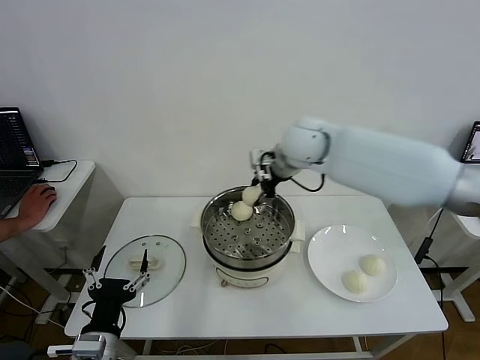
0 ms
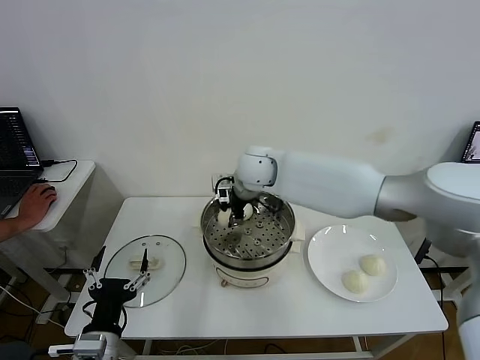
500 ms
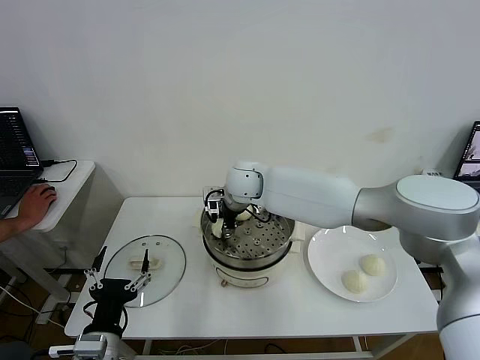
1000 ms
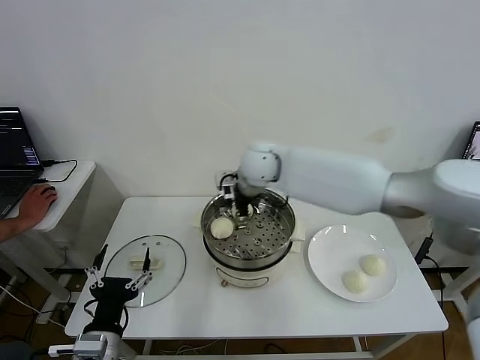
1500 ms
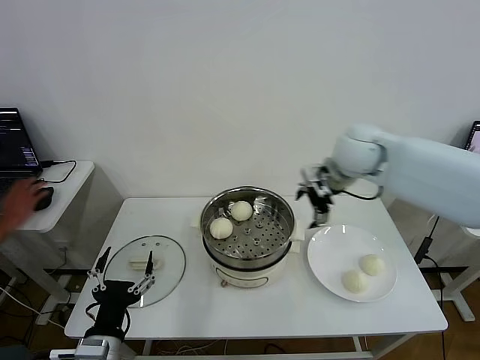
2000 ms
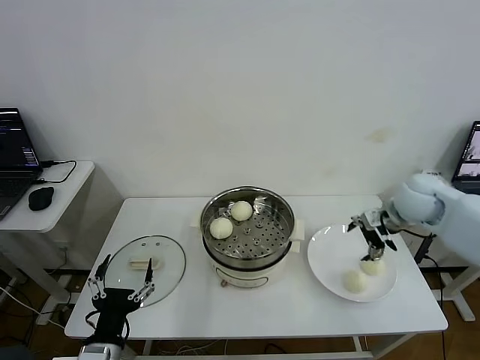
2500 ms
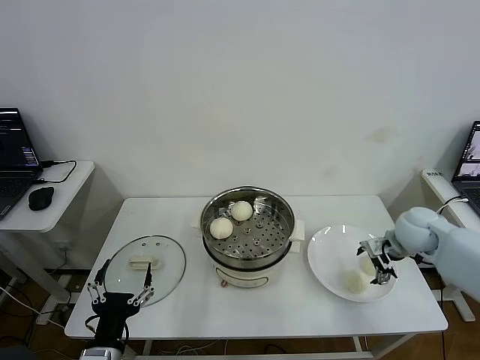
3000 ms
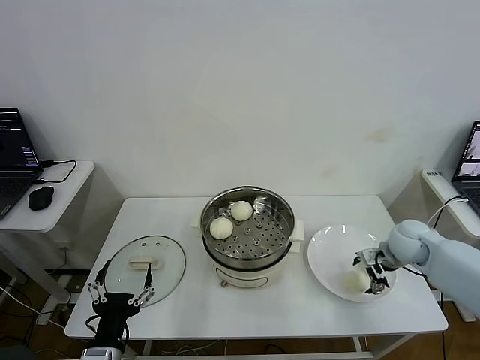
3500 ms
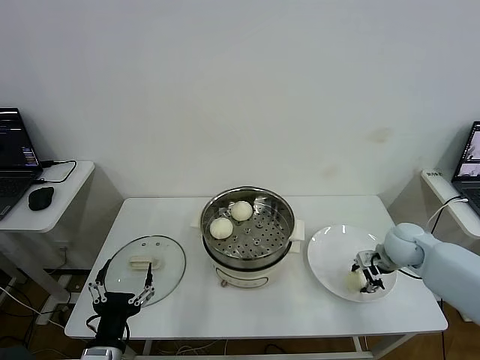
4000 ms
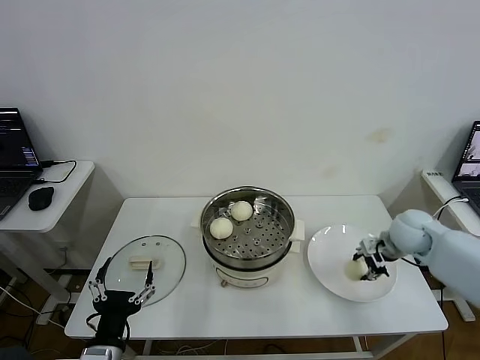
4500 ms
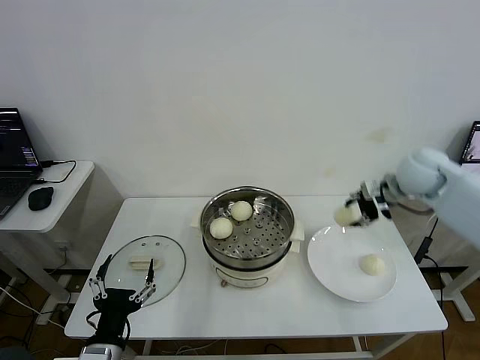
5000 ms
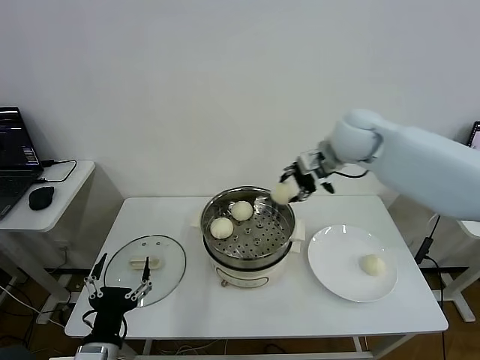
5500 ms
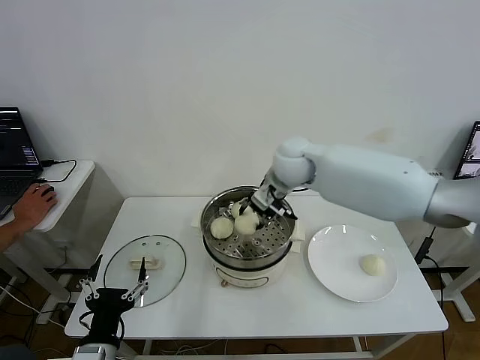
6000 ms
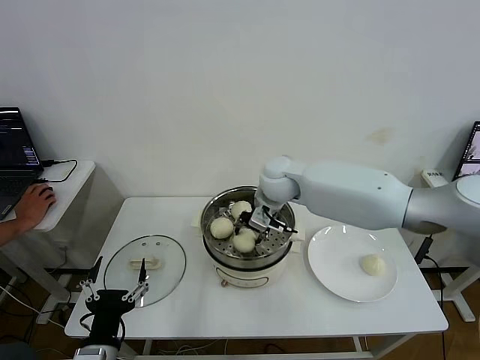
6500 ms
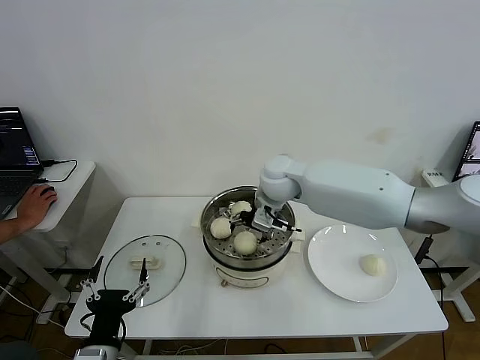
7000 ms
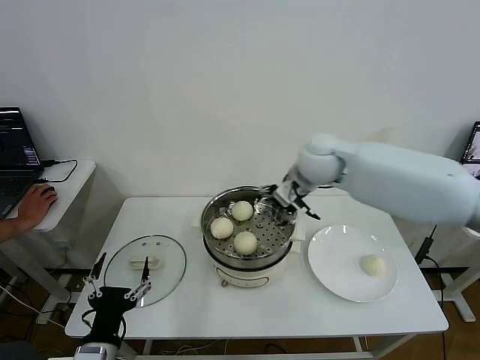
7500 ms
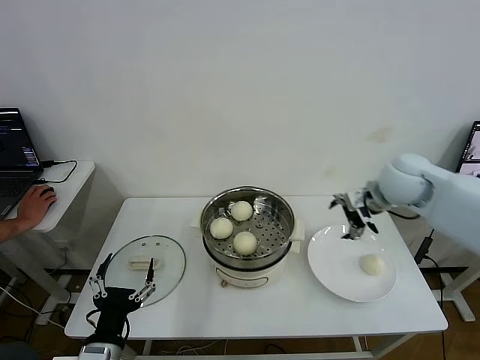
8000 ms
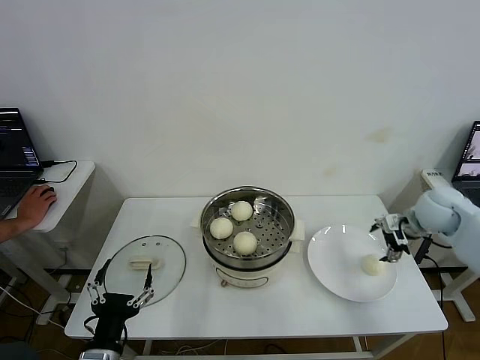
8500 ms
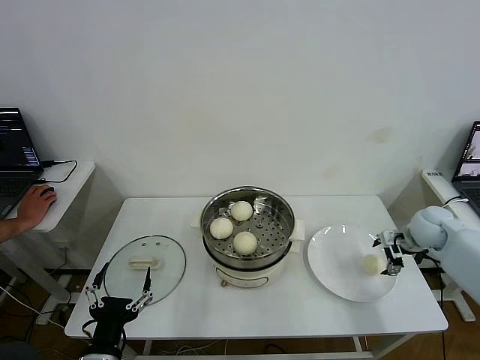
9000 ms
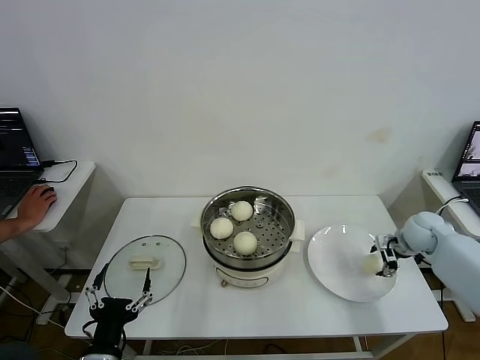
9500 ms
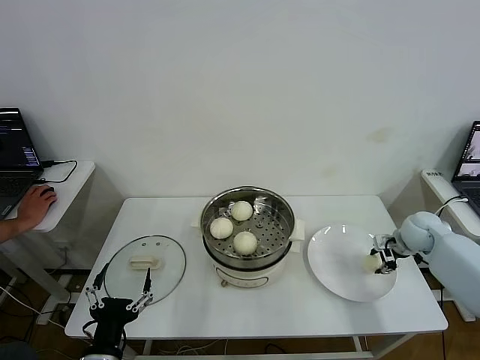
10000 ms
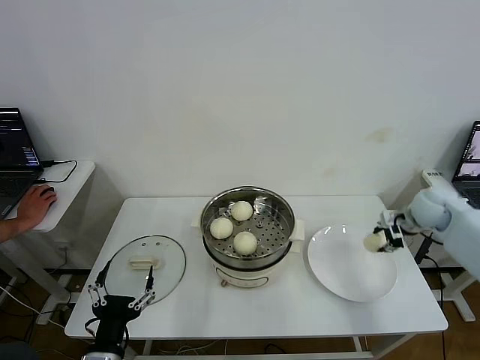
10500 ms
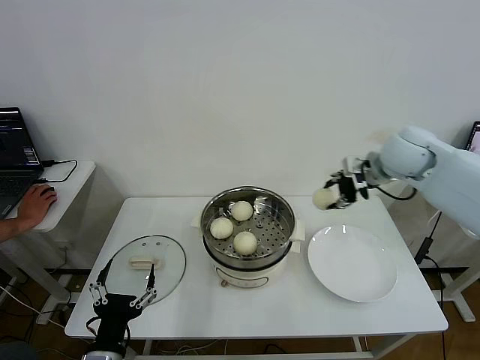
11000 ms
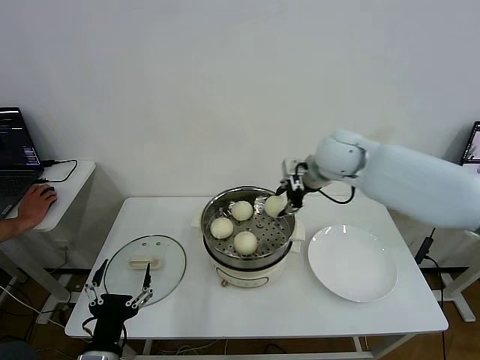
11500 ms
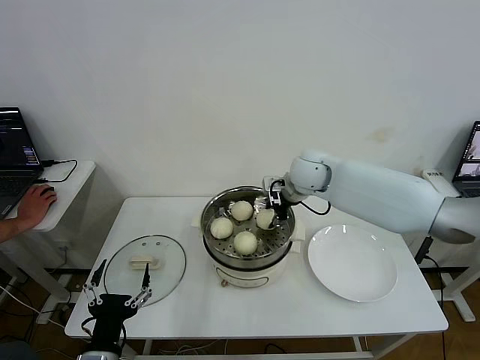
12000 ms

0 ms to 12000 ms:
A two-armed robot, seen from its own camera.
Step, 2000 ms to 3500 ms: Grasp the baozi in the plate with right gripper.
Step, 4500 ms to 7000 ms: Place the baozi on the steamer with right gripper.
Step, 7500 ms to 9500 ms: Grasp the baozi in the plate with right gripper.
0 ms to 2000 ms: The right gripper shifts about 15 cm to the right, and opens.
2000 ms to 4000 ms: The right gripper is displaced downward and to the right by roughly 25 cm, and closes up.
4000 ms to 6000 ms: The right gripper shifts some 35 cm to the left and upward.
6000 ms to 8000 ms: The right gripper goes some 25 cm to the right, and opens.
8000 ms to 10000 ms: The right gripper shifts about 20 cm downward and to the right, and closes its fingers.
10000 ms to 12000 ms: The right gripper heads to the left and upward, covering some 35 cm.

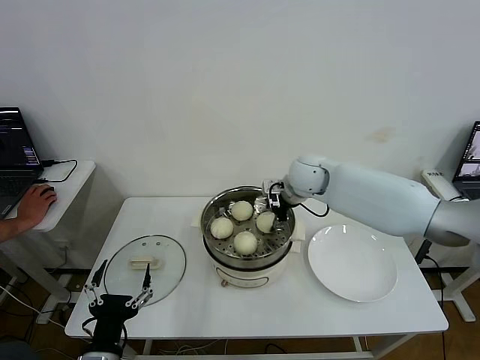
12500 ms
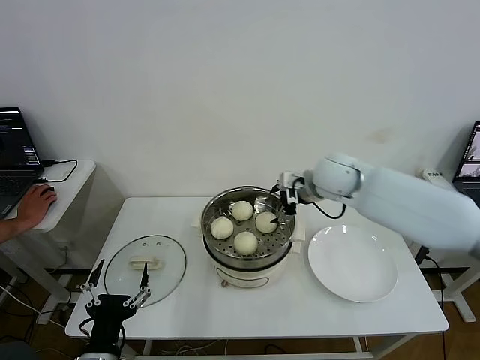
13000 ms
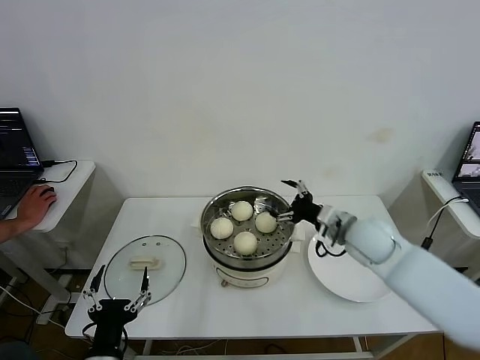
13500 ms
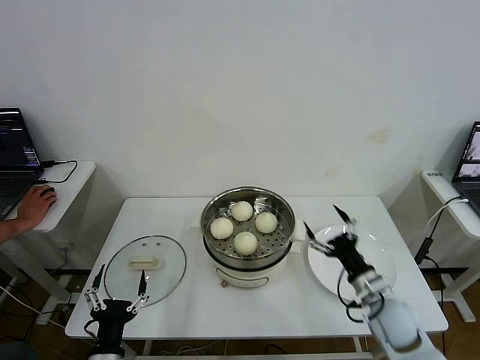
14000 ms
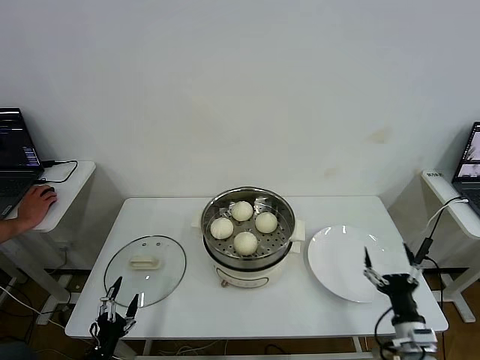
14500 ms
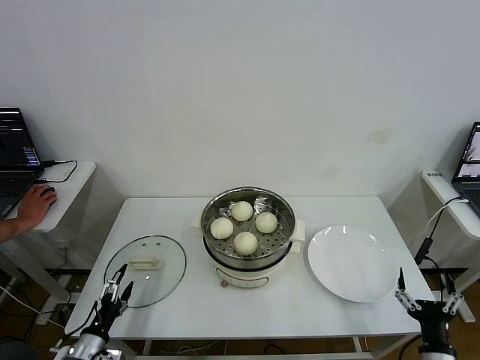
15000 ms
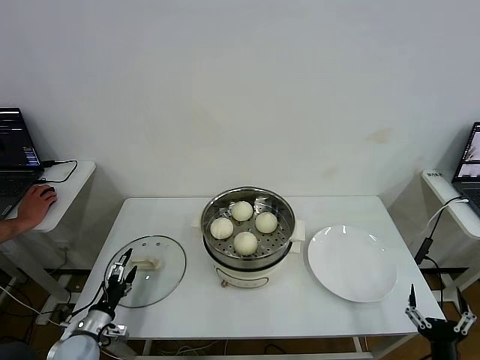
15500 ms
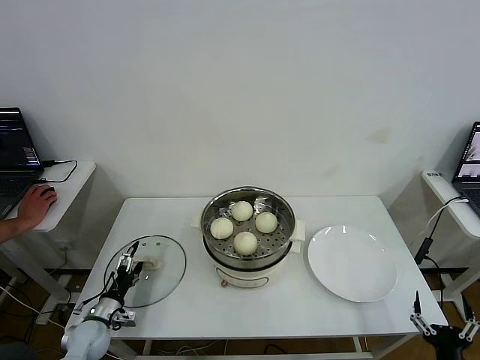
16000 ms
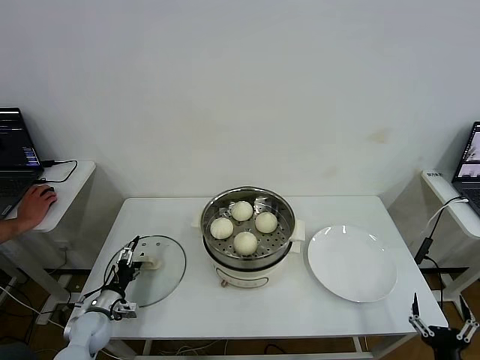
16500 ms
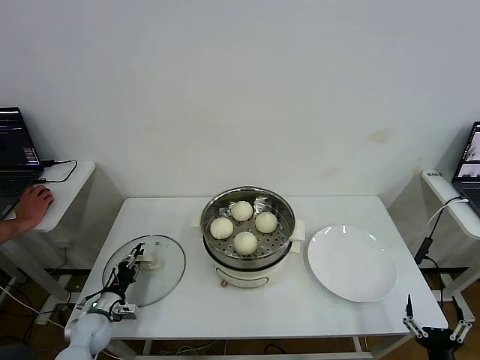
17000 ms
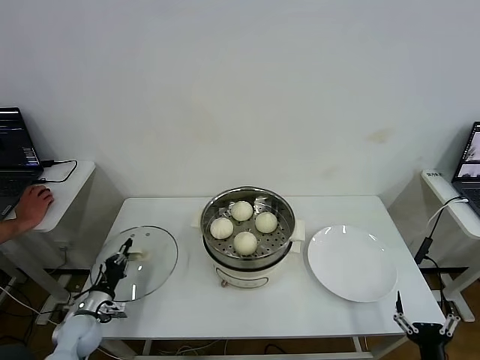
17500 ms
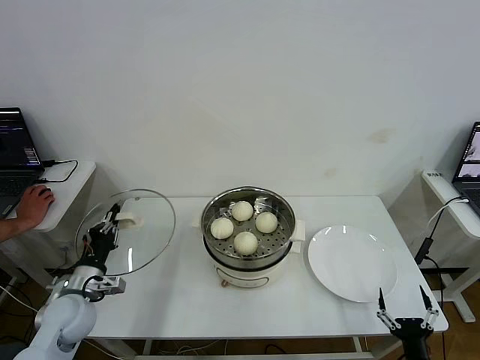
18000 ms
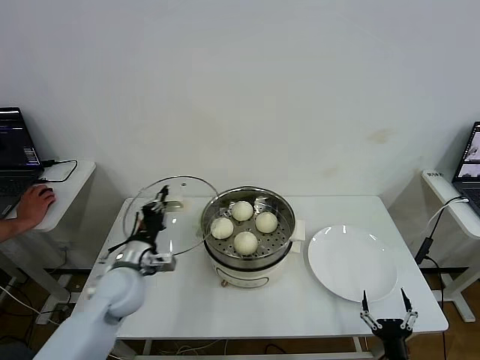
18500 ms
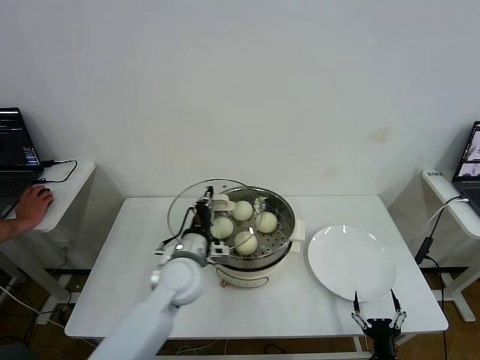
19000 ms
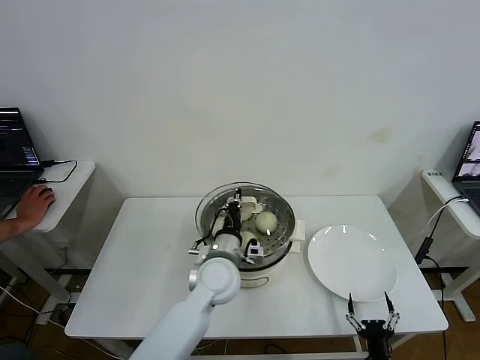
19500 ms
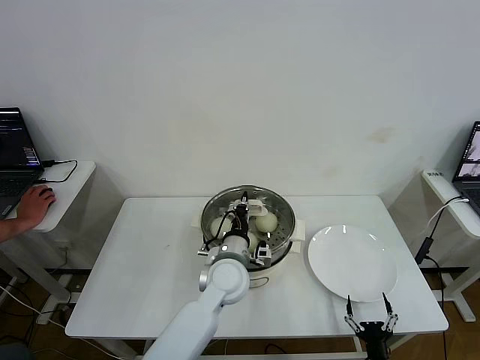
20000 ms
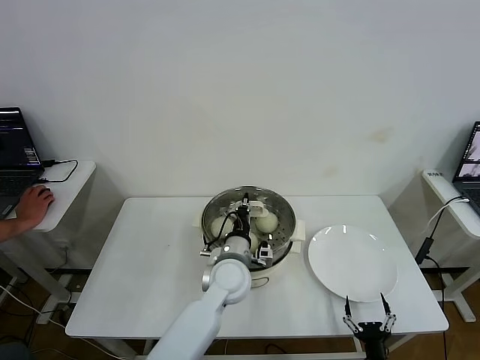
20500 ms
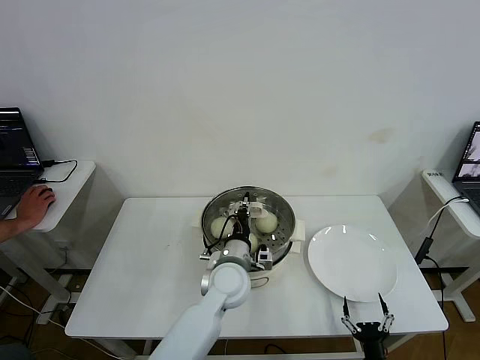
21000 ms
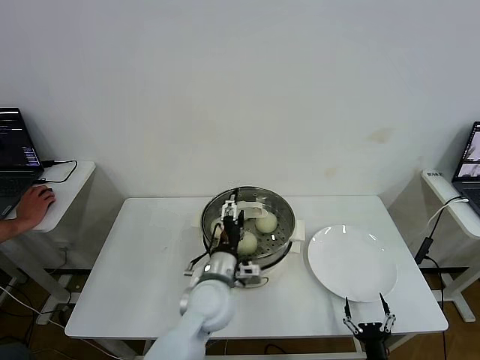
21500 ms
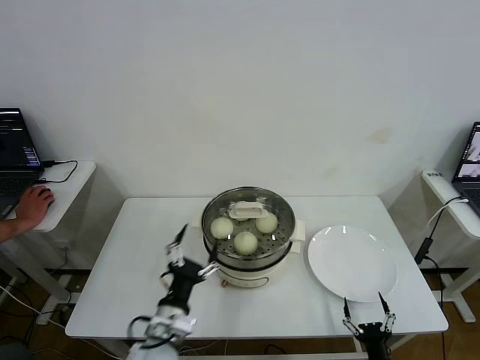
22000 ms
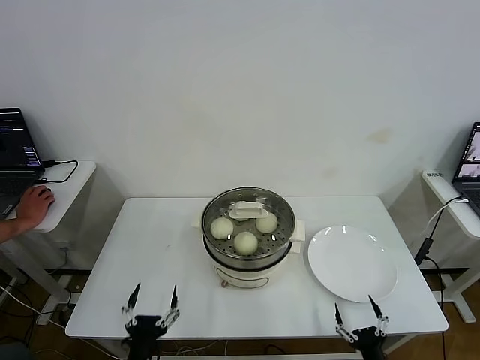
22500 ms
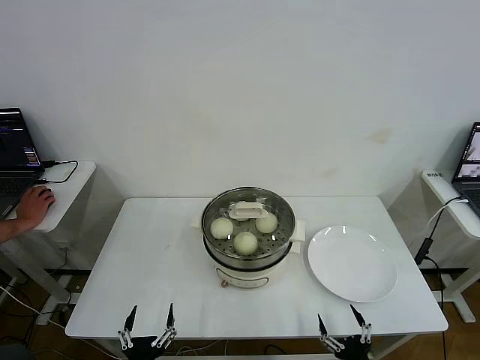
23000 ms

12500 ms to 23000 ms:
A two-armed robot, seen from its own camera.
Step, 13500 ms to 17000 ms: Grasp the pot lid with left gripper.
Step, 18000 ms to 21500 ms: Place the pot lid on the steamer with left gripper.
12500 ms to 14500 ms: The left gripper goes approximately 15 cm downward and to the left. Meanwhile the right gripper is displaced backward, downward and to the right by some 50 cm, and opens its fingers.
14500 ms to 16500 ms: The left gripper moves forward, some 20 cm. The right gripper is displaced backward by some 10 cm.
16500 ms to 19000 ms: The left gripper travels to the right and upward by about 30 cm, and closes its fingers, while the right gripper goes approximately 10 cm to the left and downward.
19000 ms to 21000 ms: The left gripper heads to the right, covering about 10 cm.
21000 ms to 23000 ms: The right gripper shifts some 5 cm upward. Meanwhile the left gripper travels backward and to the left by about 35 cm, and opens up.

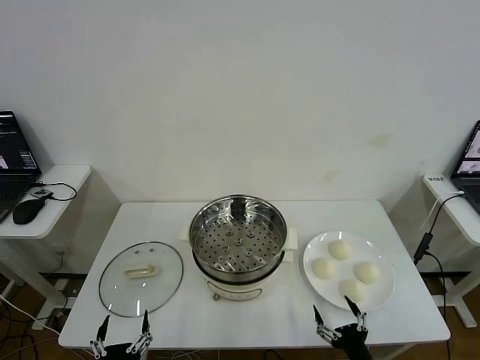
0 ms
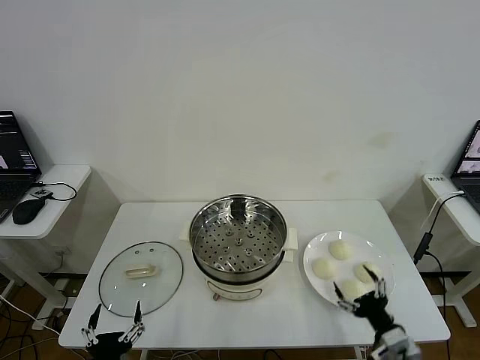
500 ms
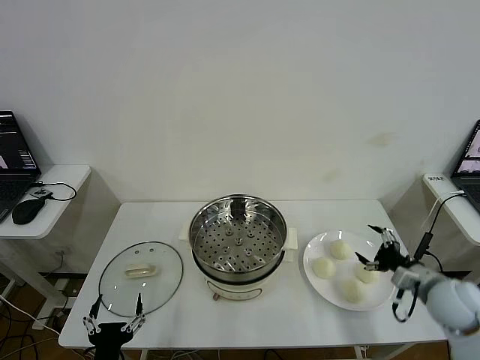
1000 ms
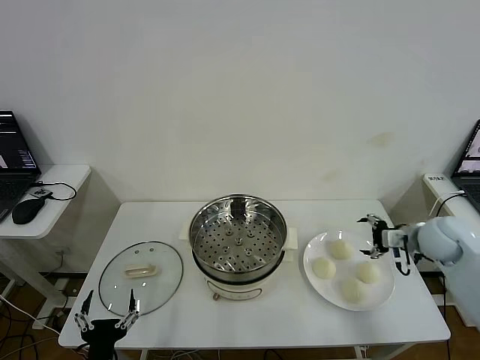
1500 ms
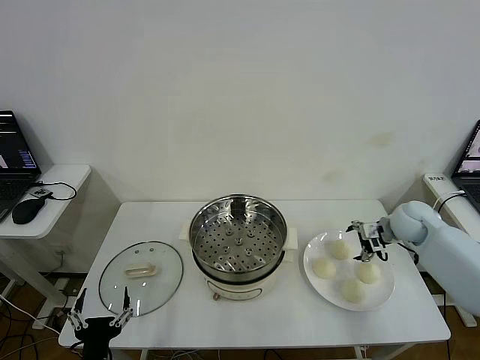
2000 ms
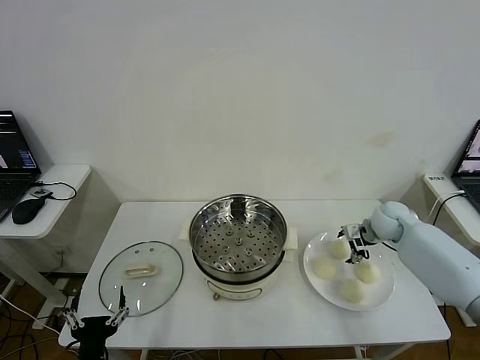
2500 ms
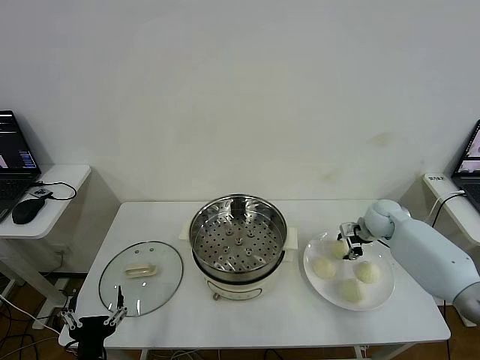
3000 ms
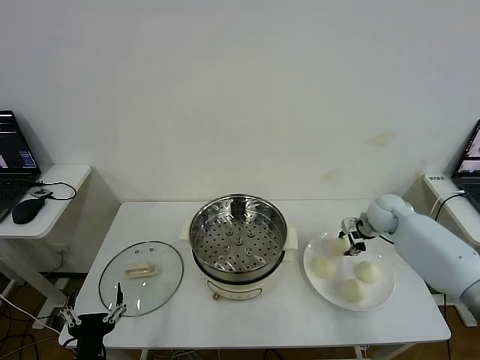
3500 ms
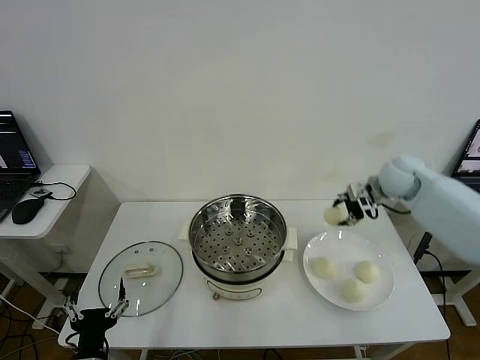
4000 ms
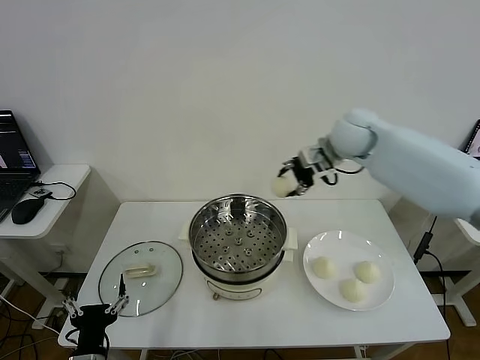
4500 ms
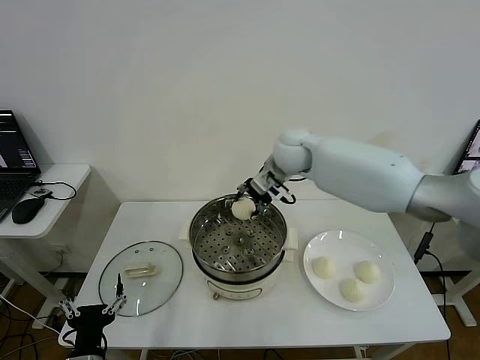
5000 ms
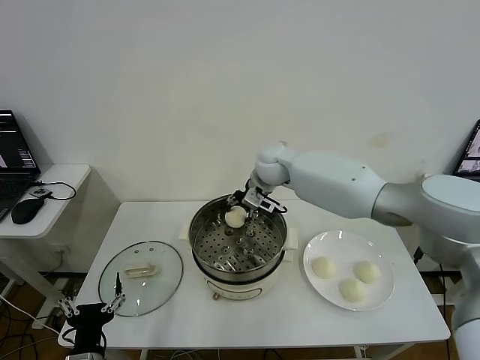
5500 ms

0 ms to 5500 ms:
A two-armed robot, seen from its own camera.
Step, 0 ms to 3000 ms: Grasp the baozi in the plate with right gripper.
2000 ms to 3500 ms: The right gripper closes up.
3500 ms to 5500 ms: The right gripper shifts approximately 30 cm to the left.
